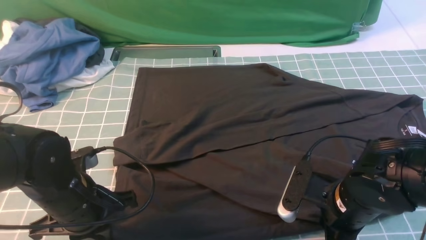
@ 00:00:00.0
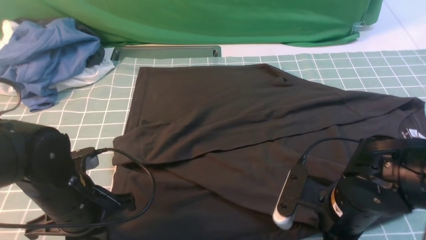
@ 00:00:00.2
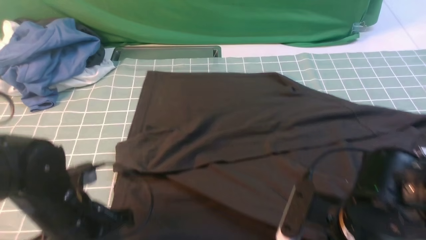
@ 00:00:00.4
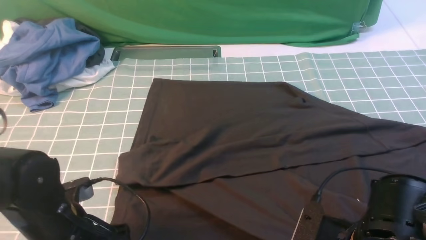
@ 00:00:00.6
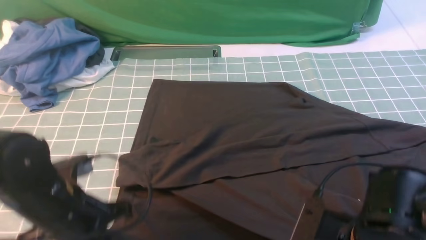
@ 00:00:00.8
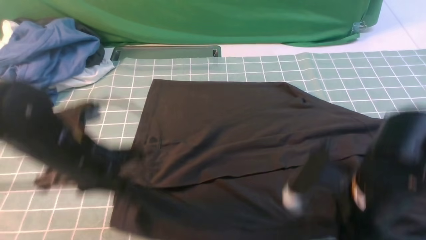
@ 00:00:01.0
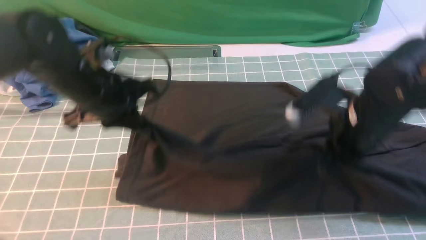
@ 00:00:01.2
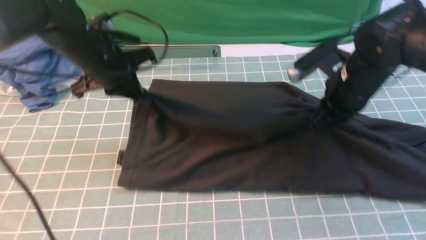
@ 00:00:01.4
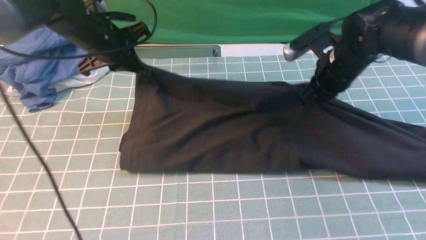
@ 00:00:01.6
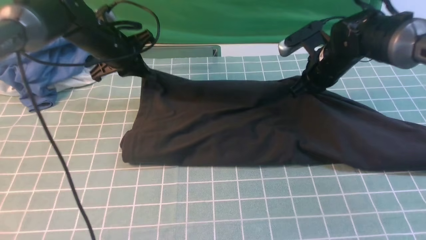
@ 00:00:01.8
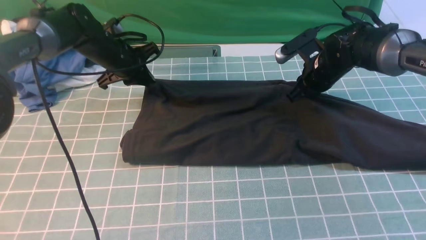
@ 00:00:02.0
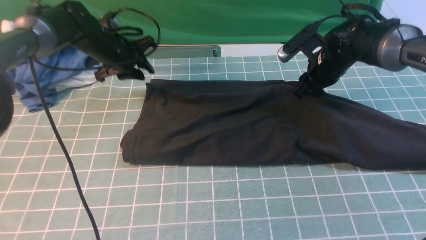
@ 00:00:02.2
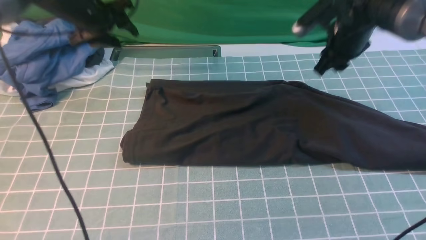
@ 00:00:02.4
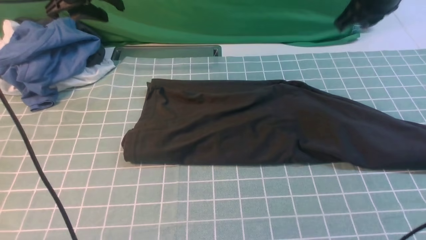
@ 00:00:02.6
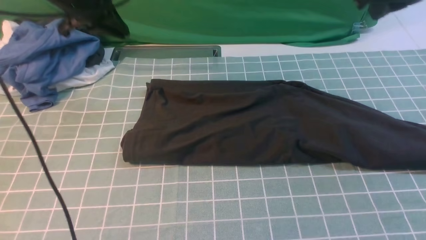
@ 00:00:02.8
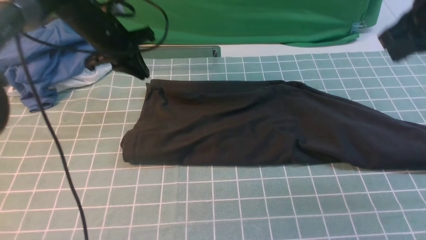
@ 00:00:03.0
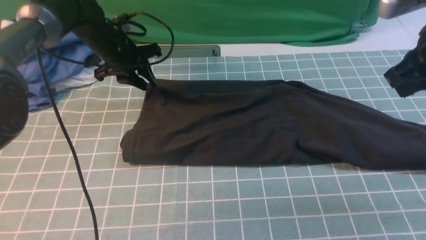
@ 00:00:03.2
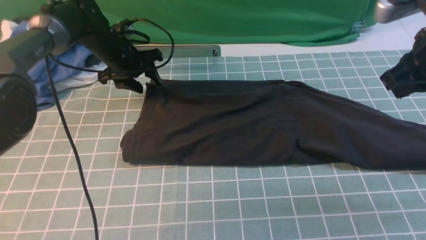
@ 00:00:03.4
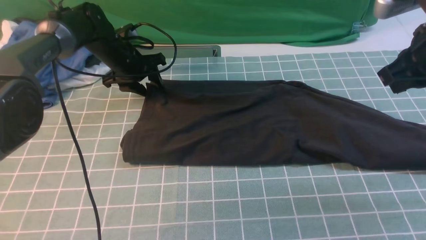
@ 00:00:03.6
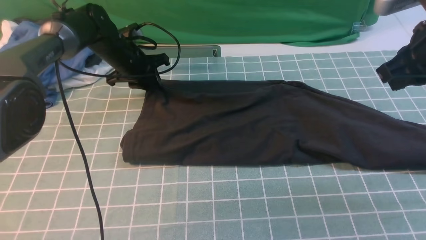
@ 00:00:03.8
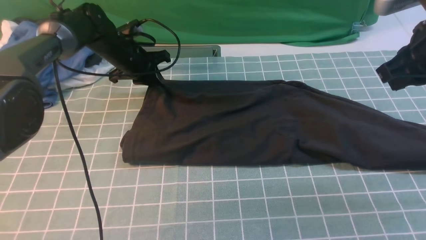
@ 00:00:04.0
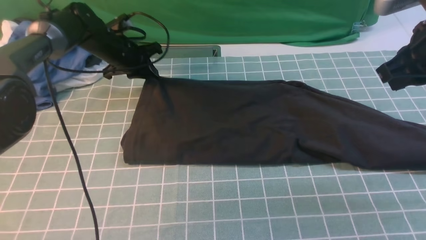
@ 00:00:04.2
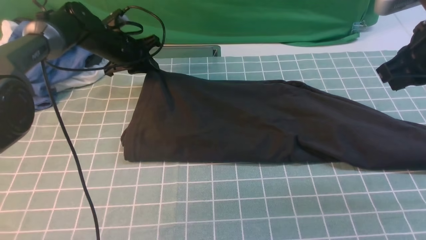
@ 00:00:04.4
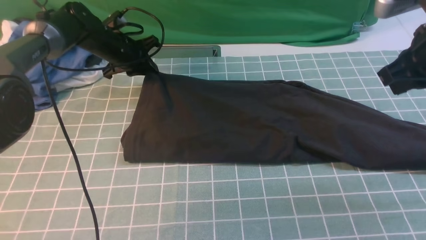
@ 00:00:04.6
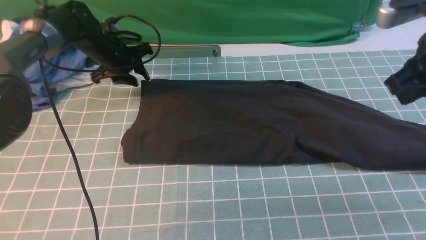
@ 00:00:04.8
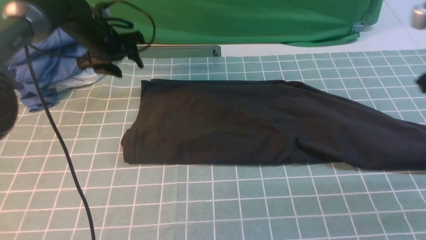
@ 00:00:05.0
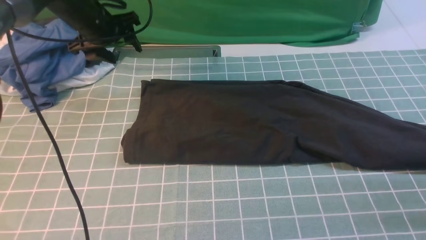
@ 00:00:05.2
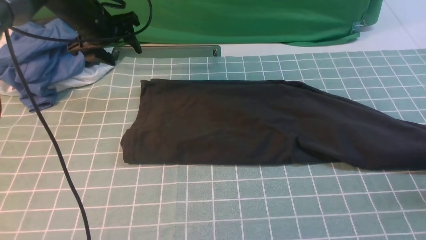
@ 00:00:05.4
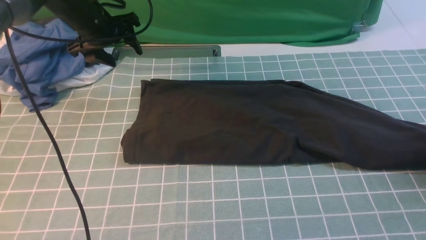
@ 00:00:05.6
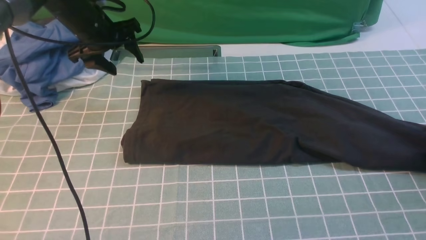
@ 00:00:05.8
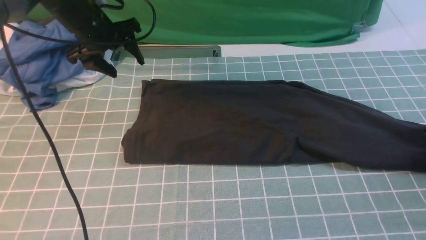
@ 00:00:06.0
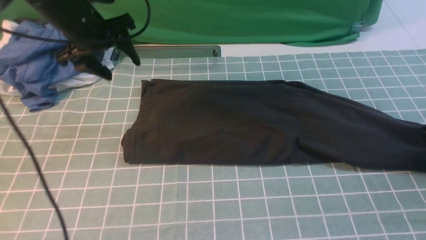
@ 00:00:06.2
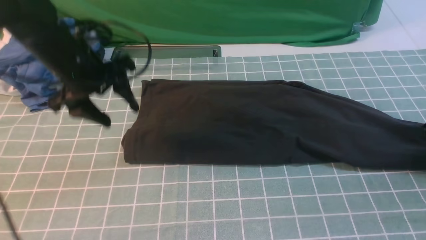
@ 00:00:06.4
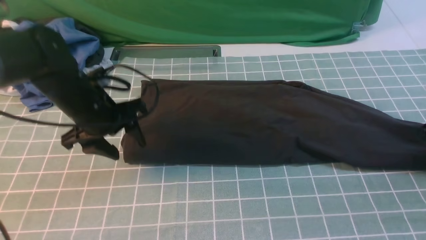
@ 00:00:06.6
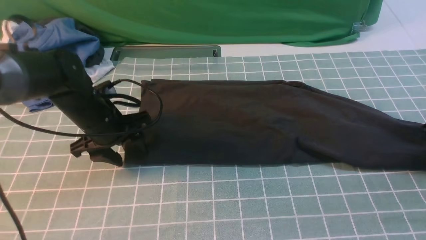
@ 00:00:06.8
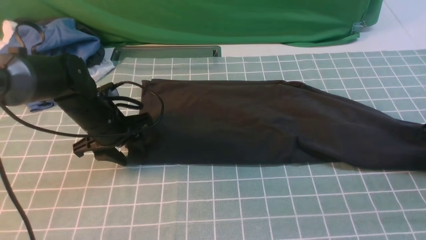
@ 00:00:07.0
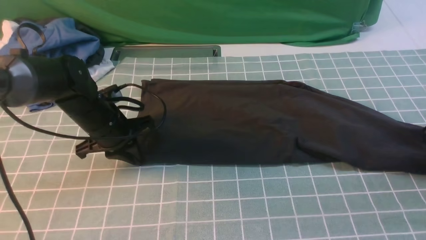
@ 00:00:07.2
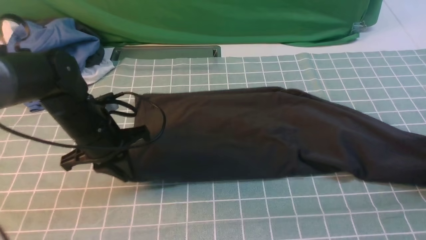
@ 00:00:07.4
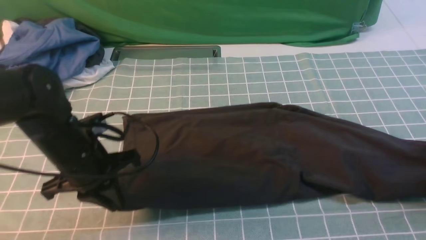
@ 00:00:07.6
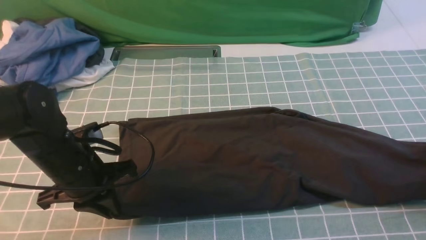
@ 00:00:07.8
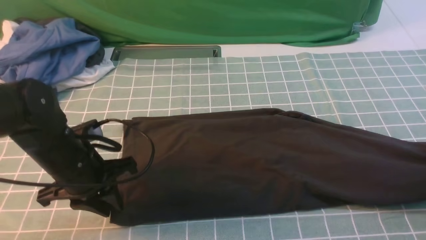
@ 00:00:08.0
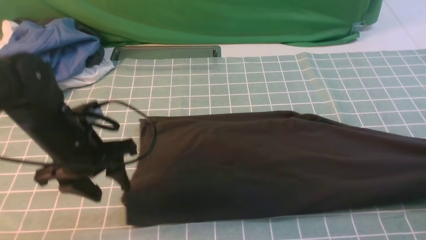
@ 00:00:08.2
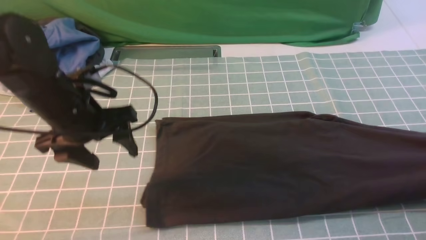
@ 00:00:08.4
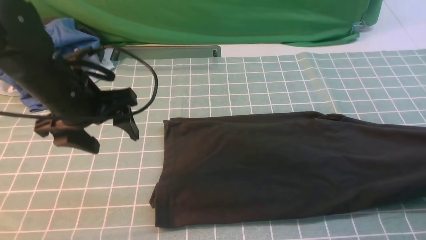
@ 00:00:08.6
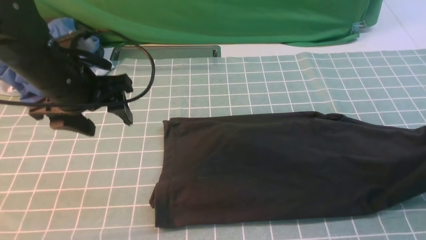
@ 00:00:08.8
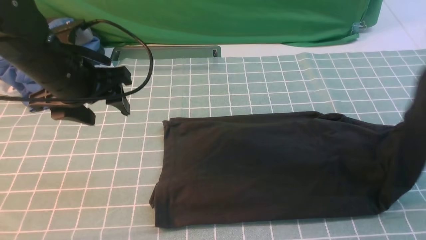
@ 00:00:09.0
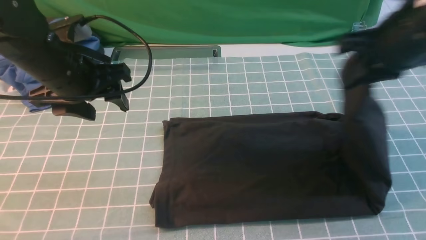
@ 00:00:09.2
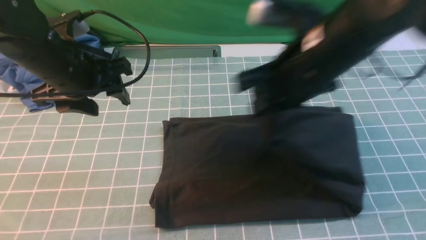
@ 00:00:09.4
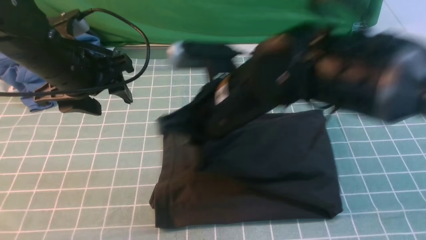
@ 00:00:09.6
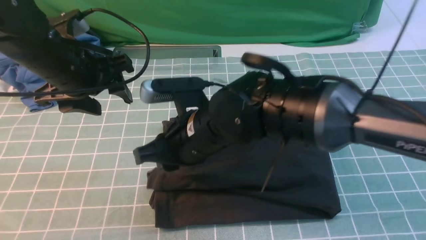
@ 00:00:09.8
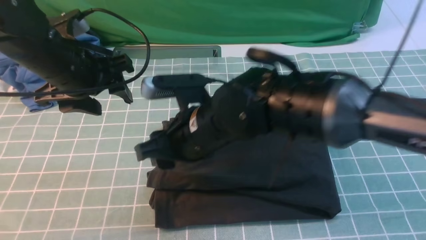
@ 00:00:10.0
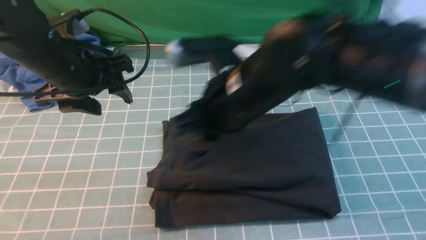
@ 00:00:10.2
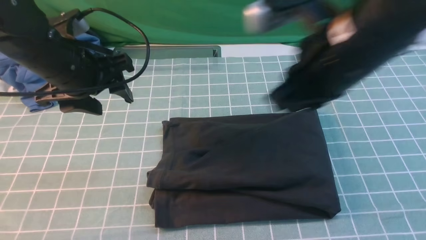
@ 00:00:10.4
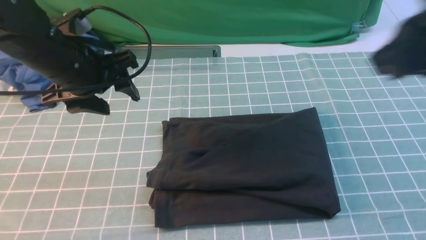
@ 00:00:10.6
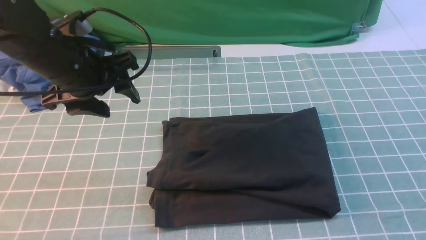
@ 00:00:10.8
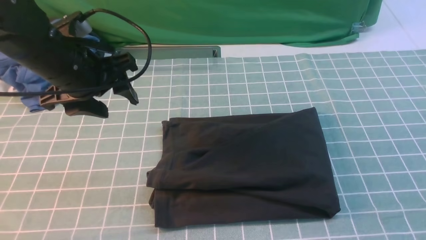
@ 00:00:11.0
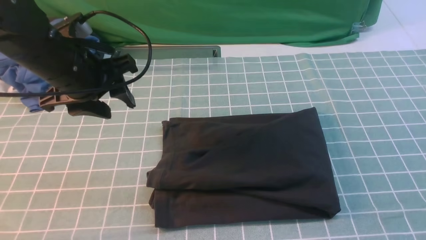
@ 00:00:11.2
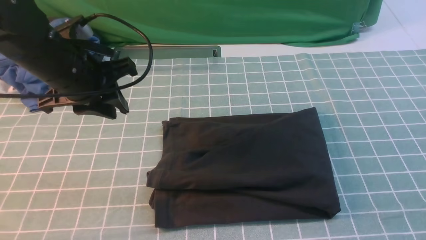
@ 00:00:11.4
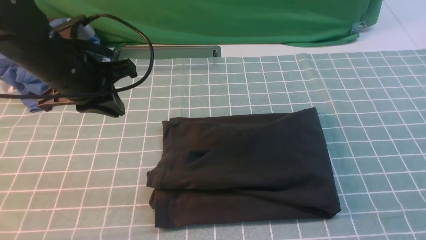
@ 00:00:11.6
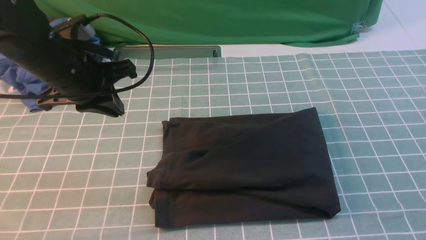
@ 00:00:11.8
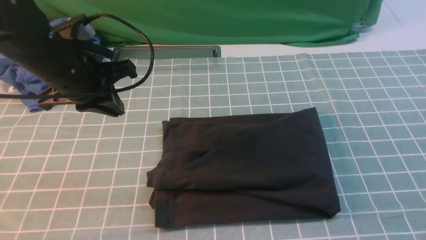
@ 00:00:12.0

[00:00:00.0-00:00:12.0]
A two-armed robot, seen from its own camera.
Step, 00:00:00.8 to 00:00:02.2: use both arms to drag the lower edge of the fabric forward and fold it over the upper edge.
Step, 00:00:02.4 to 00:00:08.0: use the right arm to clamp the right edge of the fabric.
Step, 00:00:08.2 to 00:00:10.0: use the right arm to drag the right edge of the fabric to the left and folds it over the left edge.
00:00:00.0 to 00:00:01.6: Both grippers travel together forward, roughly 25 cm.
00:00:01.6 to 00:00:03.0: The left gripper swings up and down, approximately 10 cm each way, with 2 reversals, and opens, then closes again; the right gripper travels upward, backward and to the right by about 20 cm, and opens and closes again.
00:00:03.0 to 00:00:04.4: The left gripper travels downward by about 5 cm, and opens, then closes again.
00:00:04.4 to 00:00:06.0: The left gripper is displaced upward and backward by some 10 cm, and opens up. The right gripper heads downward and to the right, covering some 25 cm, and opens its fingers.
00:00:06.0 to 00:00:07.6: The right gripper changes place by approximately 5 cm, and closes its fingers. Meanwhile the left gripper heads backward and downward, covering about 20 cm, and closes.
00:00:07.6 to 00:00:09.0: The left gripper heads upward, covering approximately 10 cm, and opens up, while the right gripper goes roughly 20 cm upward and to the left.
00:00:09.0 to 00:00:10.4: The right gripper shifts some 20 cm to the left and backward, and opens, then closes again.
00:00:10.4 to 00:00:12.0: The left gripper closes up; the right gripper goes about 25 cm backward, to the right and downward.

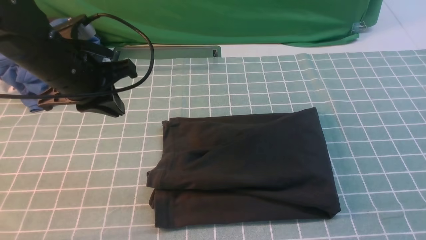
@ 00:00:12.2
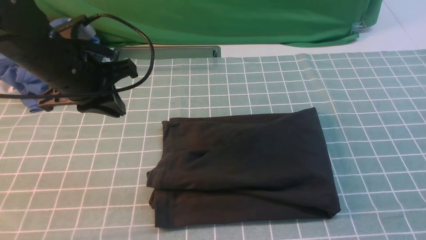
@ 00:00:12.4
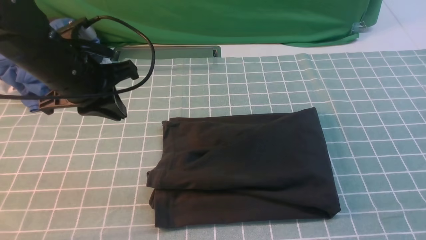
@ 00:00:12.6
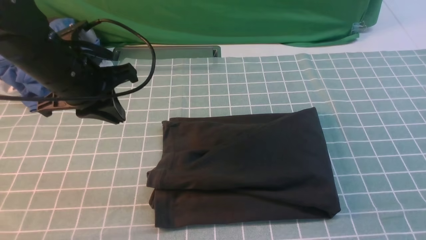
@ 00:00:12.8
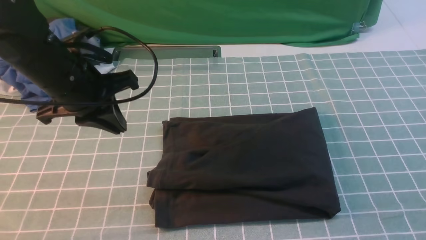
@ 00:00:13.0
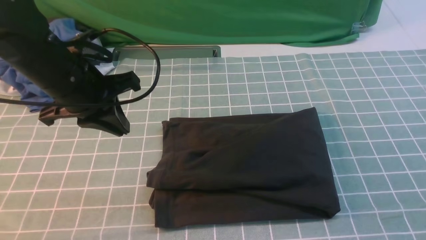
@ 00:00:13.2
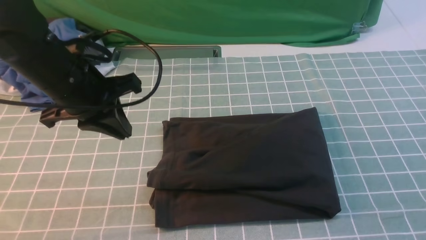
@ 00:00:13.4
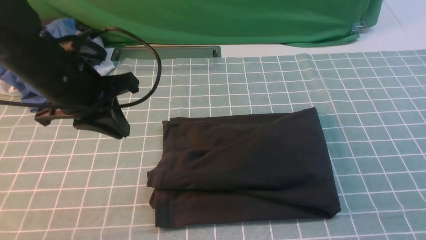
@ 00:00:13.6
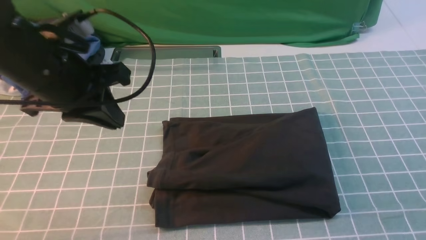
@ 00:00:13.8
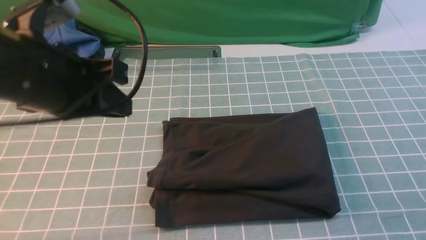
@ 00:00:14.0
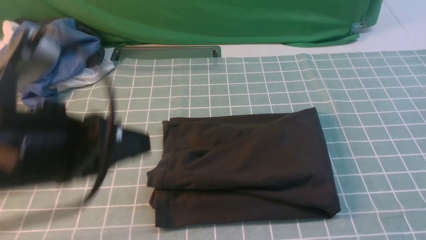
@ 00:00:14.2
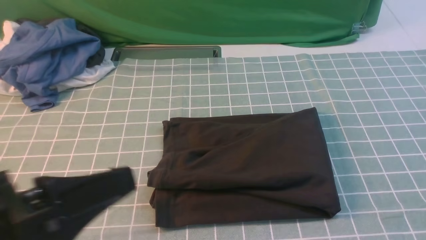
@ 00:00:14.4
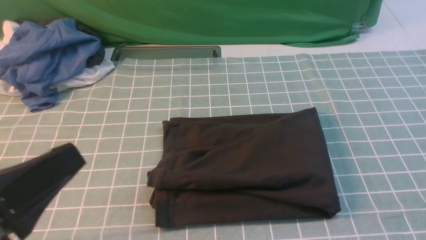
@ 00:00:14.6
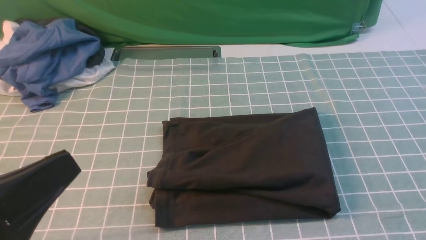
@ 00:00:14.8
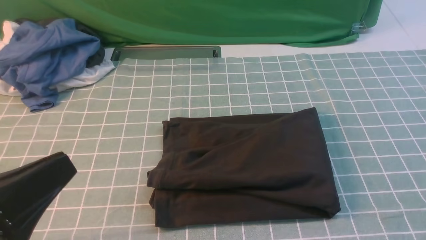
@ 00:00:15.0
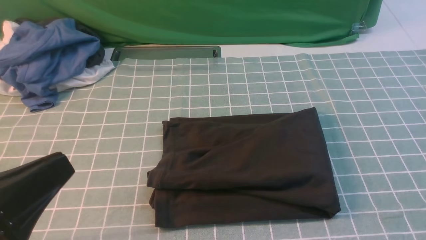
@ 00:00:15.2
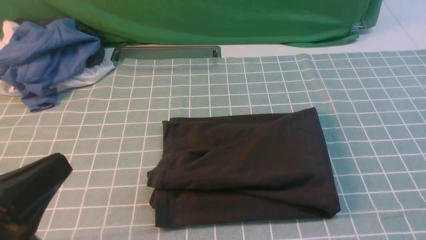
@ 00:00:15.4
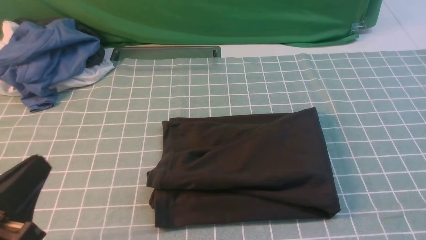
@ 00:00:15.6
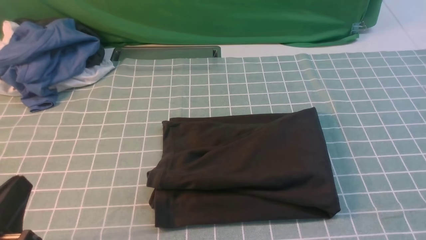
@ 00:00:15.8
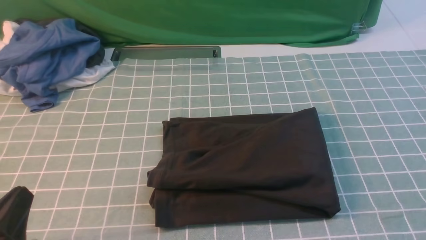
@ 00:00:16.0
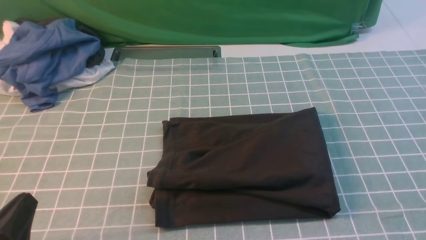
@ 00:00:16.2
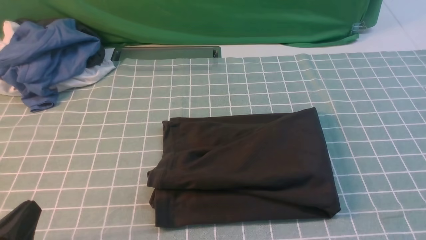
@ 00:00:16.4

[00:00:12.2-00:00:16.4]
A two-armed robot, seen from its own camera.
00:00:13.6 to 00:00:15.0: The left gripper is displaced backward by approximately 25 cm.
00:00:15.0 to 00:00:16.4: The left gripper travels downward by roughly 15 cm.
